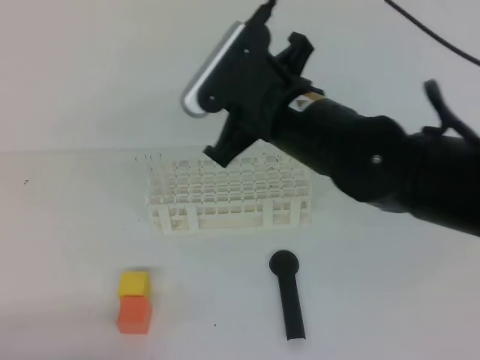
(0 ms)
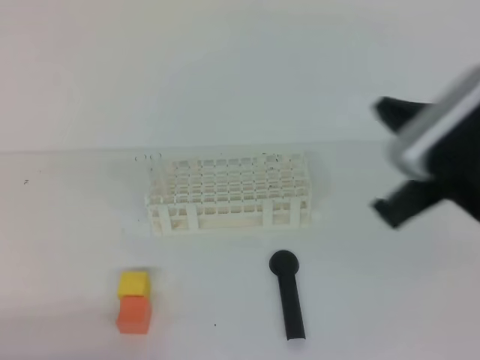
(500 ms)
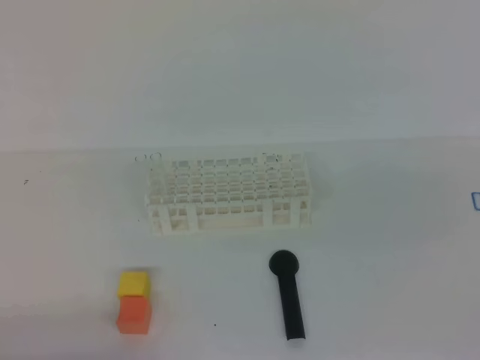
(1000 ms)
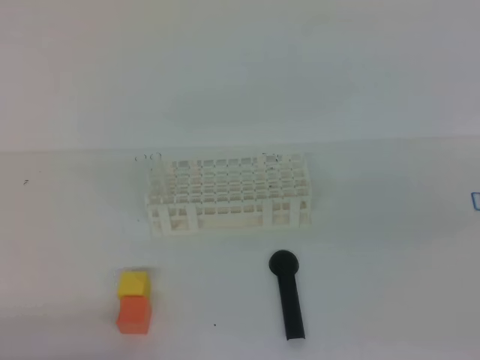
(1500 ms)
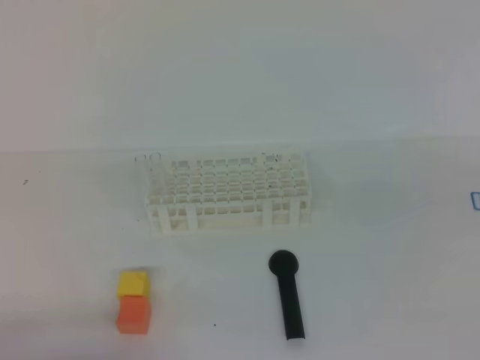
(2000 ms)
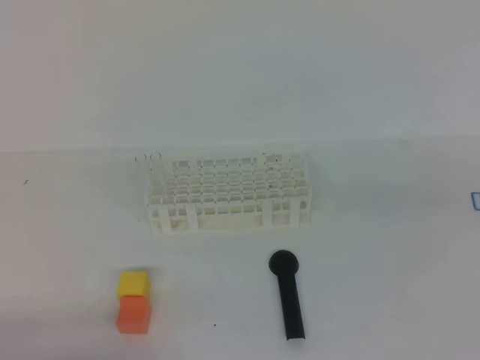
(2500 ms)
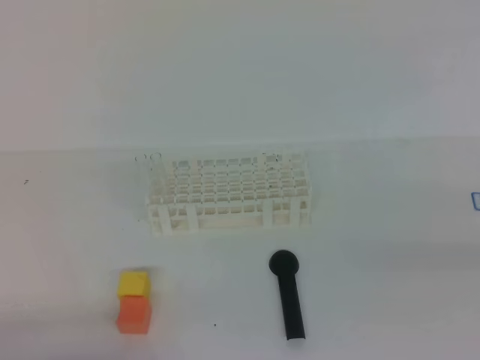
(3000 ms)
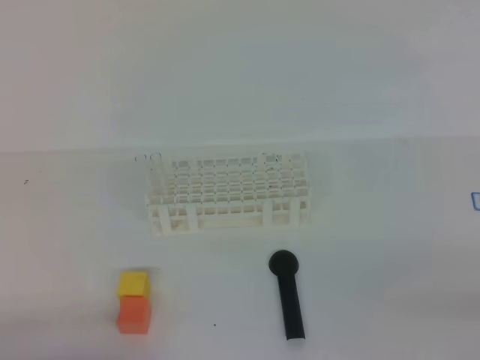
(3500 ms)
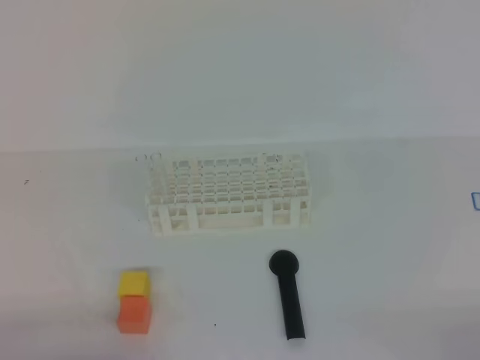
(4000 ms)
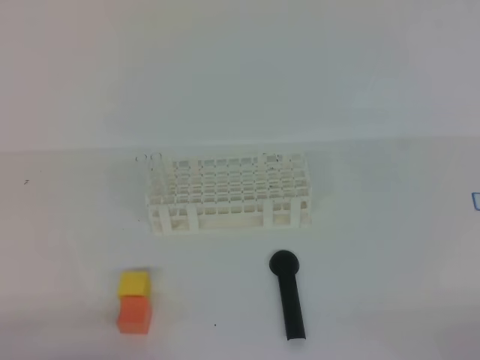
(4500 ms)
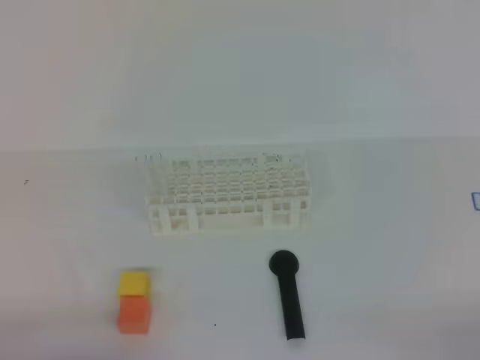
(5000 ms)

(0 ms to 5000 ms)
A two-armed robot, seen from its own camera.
0 ms - 2500 ms: The right gripper travels to the right and backward by approximately 35 cm.
